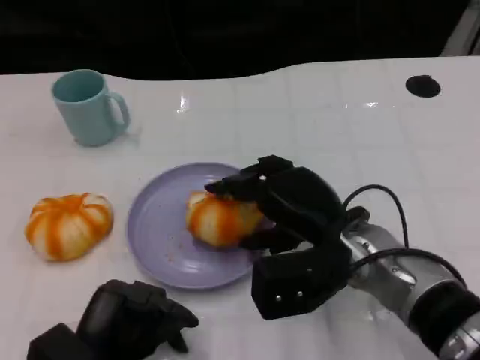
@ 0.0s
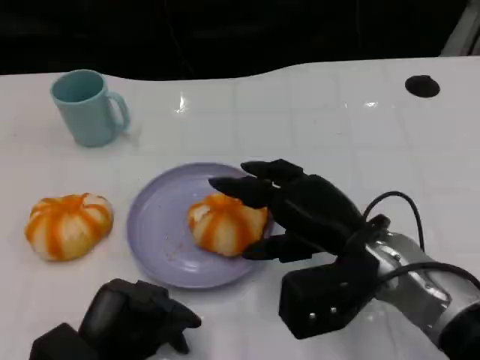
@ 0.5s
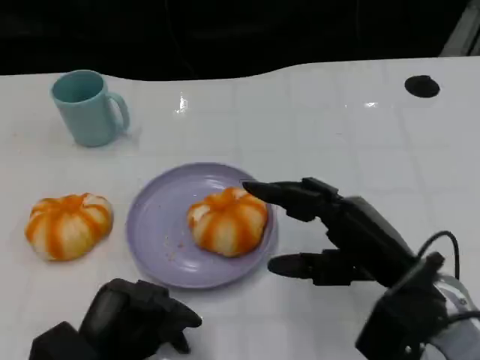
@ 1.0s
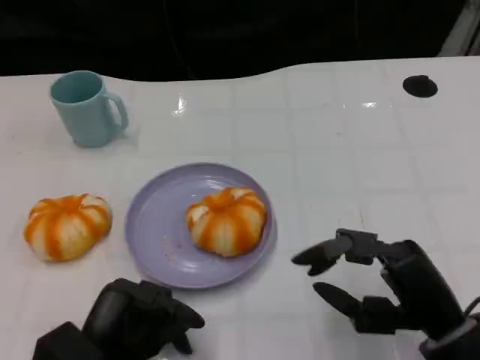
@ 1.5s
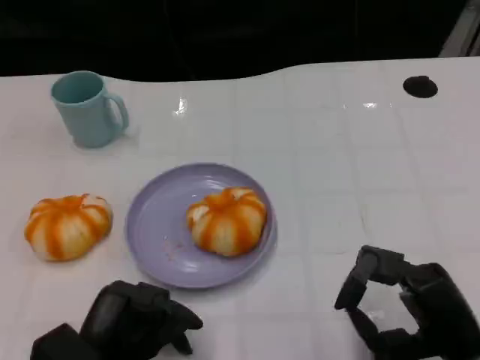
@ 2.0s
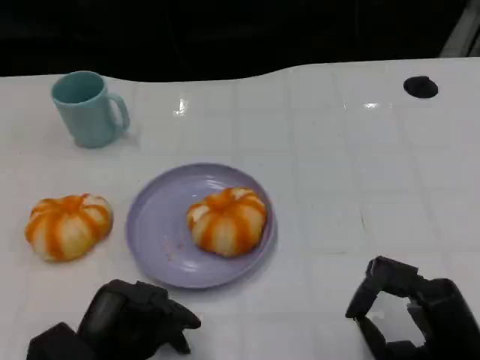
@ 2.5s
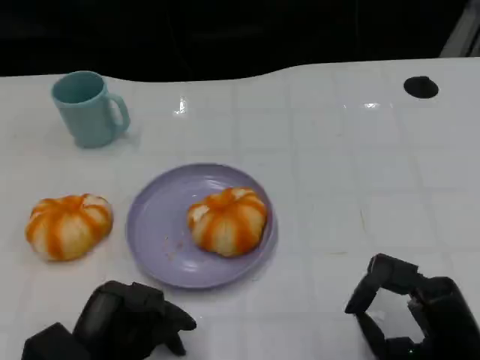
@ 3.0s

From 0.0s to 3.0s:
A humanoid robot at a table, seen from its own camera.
Task of the whole recording: Grasp the bread from the table and place it into the plate.
From 0.0s to 1.5s: The right hand heads to the right and backward, covering approximately 15 cm.
From 1.5s to 3.0s: The hands stay close to where they were, moving slightly.

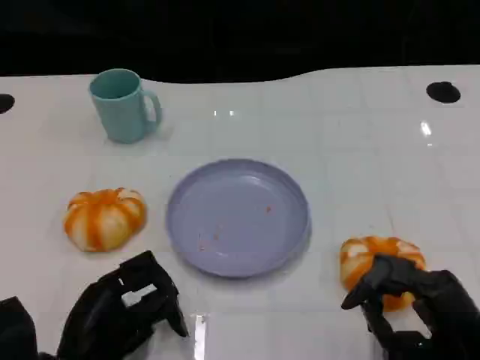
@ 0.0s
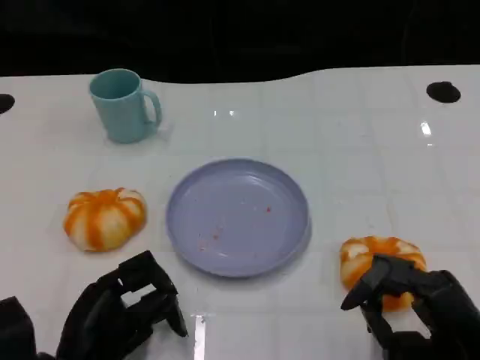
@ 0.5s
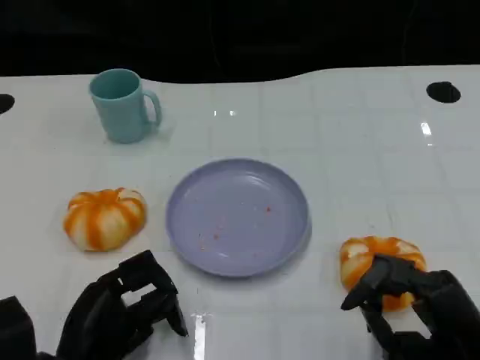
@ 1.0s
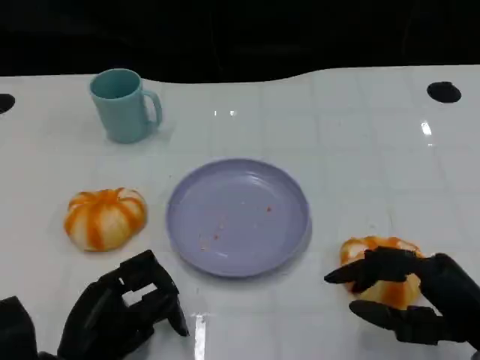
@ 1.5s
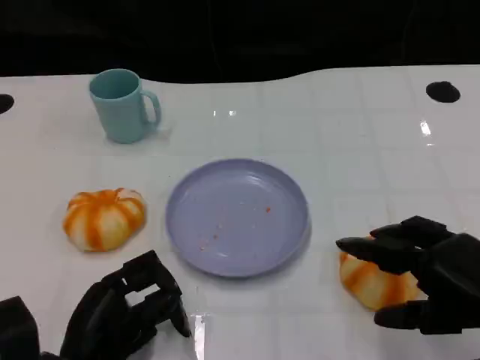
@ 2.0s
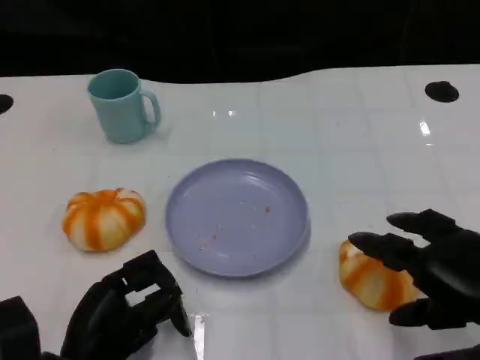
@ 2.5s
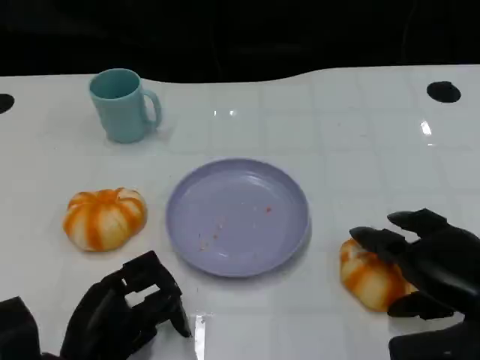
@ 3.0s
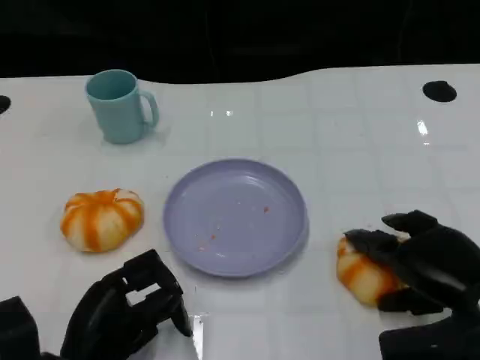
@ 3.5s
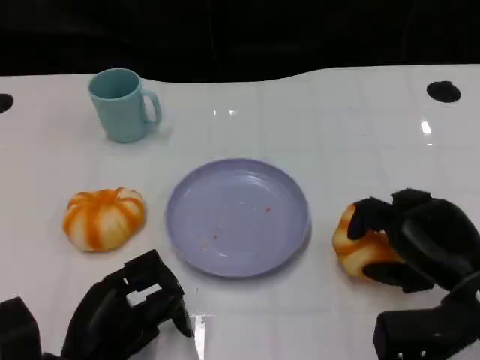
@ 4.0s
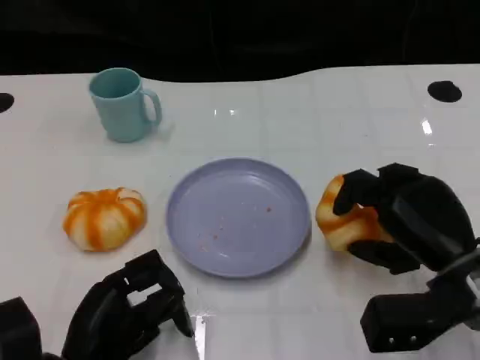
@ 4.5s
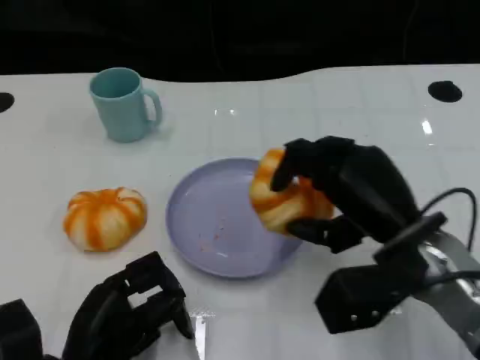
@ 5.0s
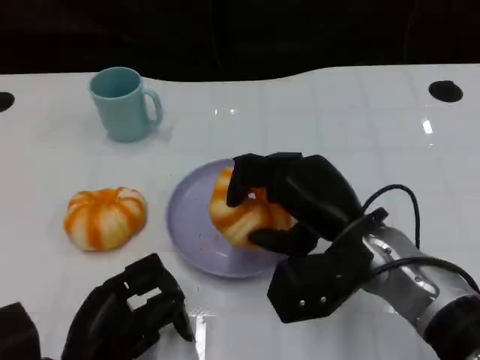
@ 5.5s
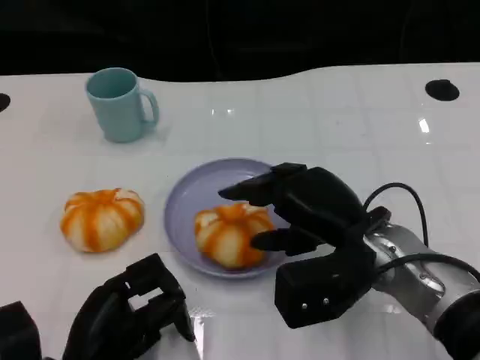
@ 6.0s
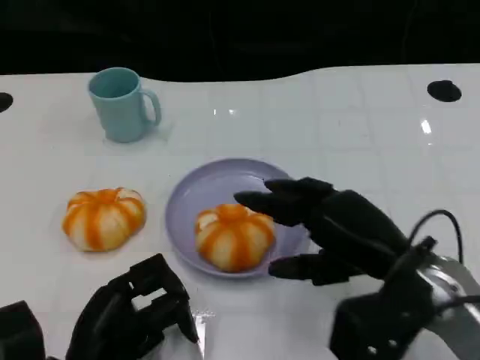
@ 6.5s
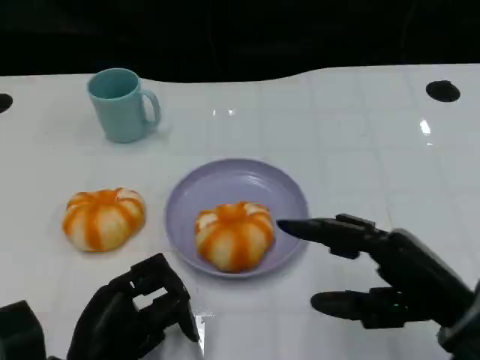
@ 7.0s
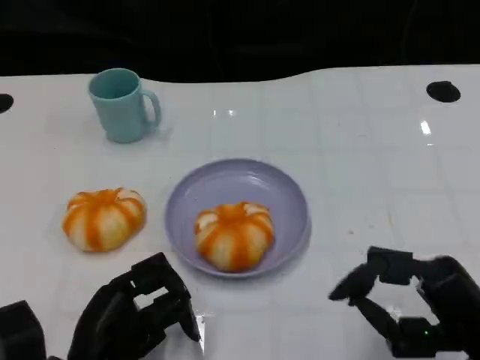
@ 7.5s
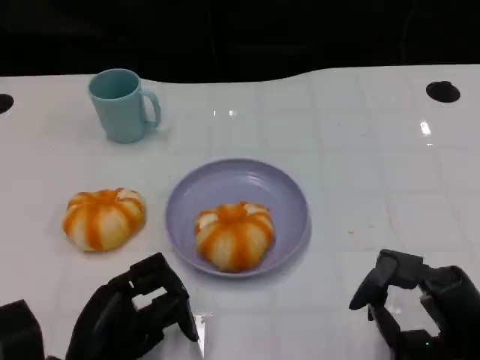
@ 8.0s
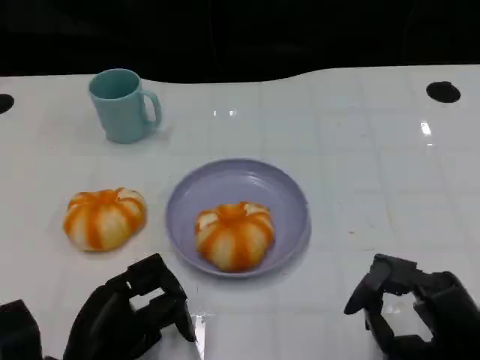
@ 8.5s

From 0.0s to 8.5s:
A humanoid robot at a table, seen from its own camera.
Task of the whole recording: Grasp the bread from the table and place it into the plate.
From 0.0s to 2.0s: The right hand travels upward by approximately 5 cm.
From 2.0s to 4.0s: The right hand is displaced forward by some 5 cm.
From 4.0s to 6.5s: The right hand heads to the left, covering some 5 cm.
From 6.5s to 8.5s: The right hand goes roughly 10 cm backward, downward and to the right.

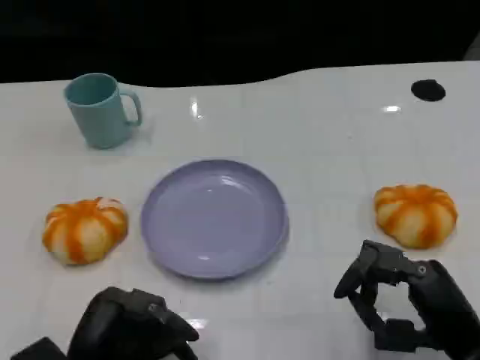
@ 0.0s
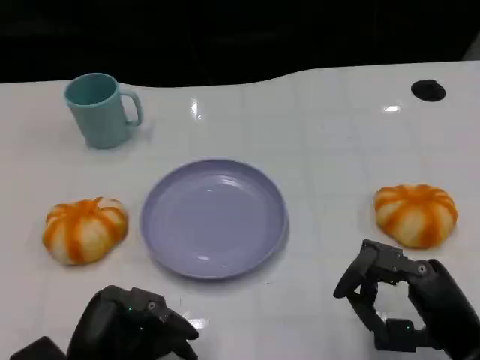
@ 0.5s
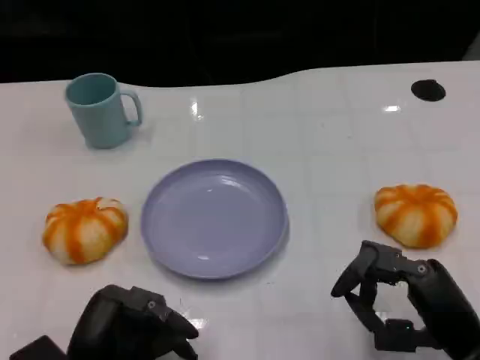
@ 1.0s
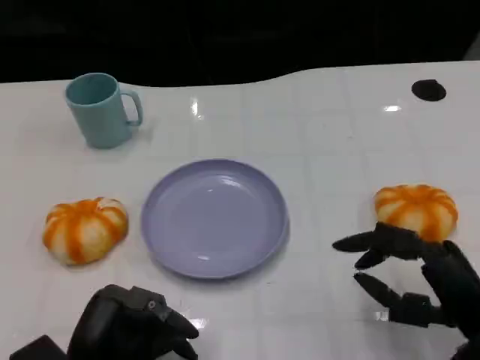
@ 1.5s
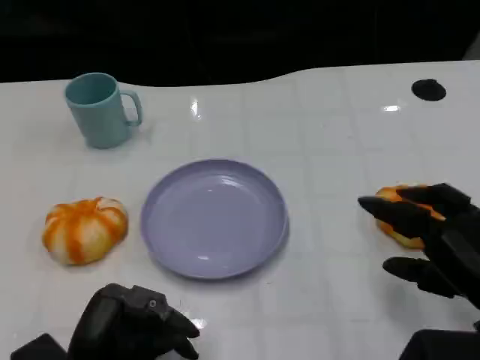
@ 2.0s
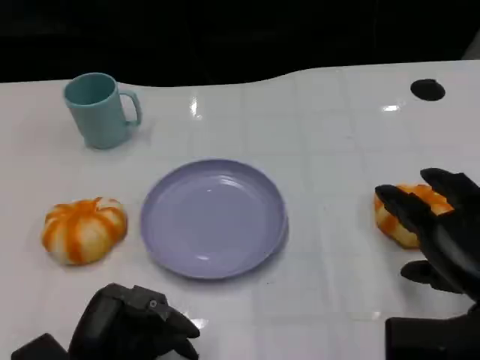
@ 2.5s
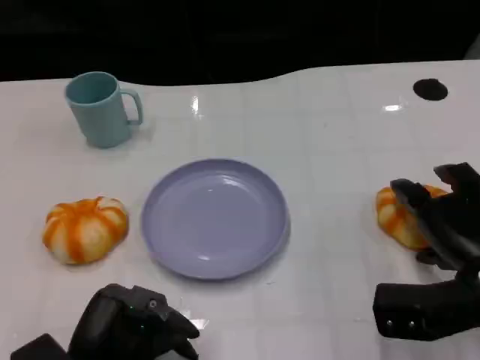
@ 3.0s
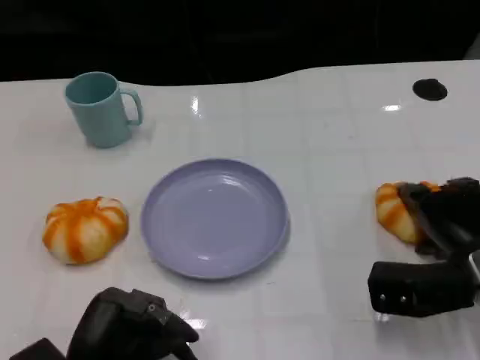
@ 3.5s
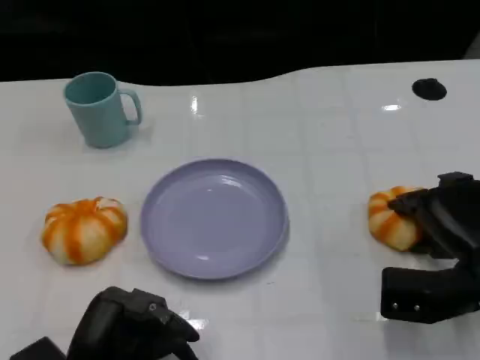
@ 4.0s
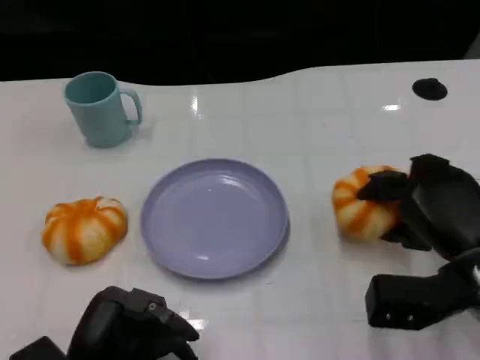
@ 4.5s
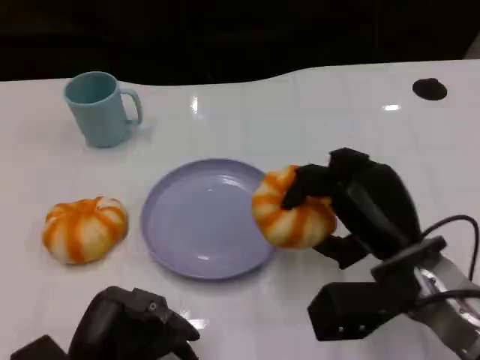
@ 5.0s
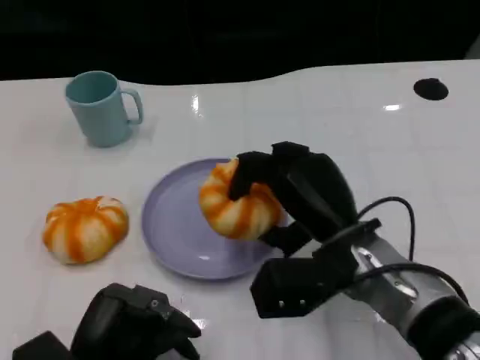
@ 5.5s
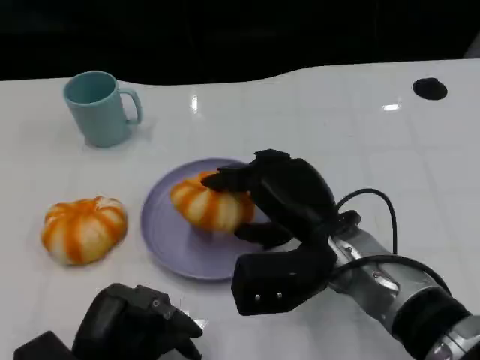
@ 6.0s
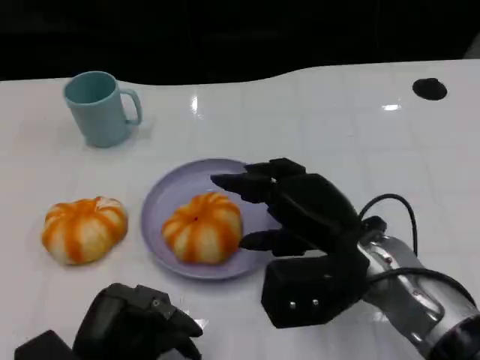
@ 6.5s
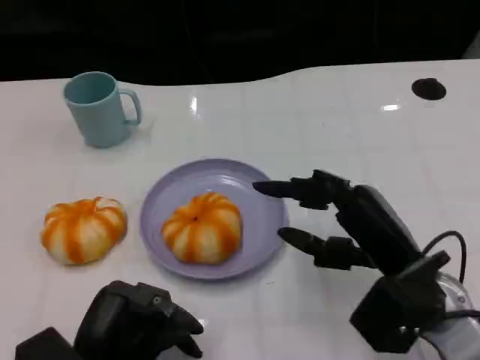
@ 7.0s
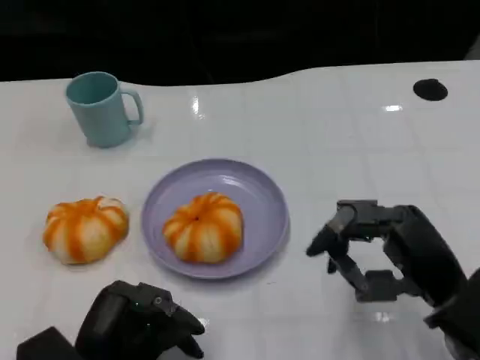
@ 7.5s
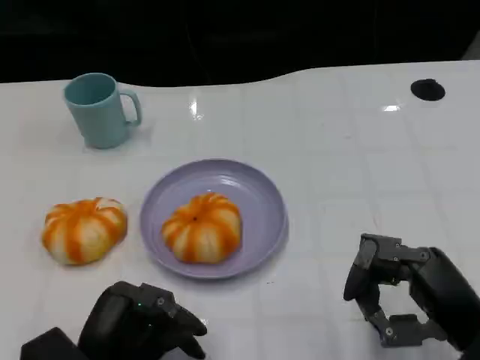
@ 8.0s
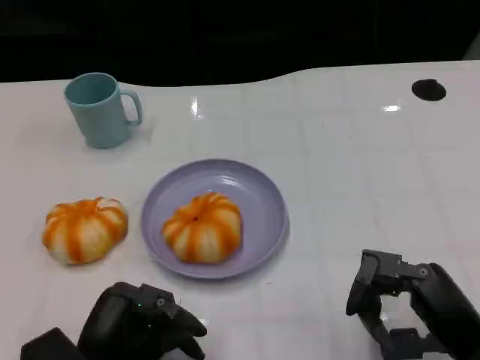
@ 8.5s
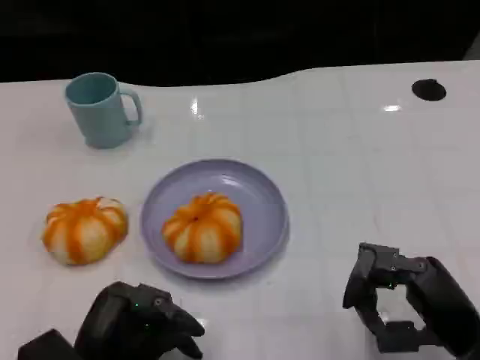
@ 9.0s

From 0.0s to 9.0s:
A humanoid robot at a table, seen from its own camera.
Task of the whole recording: Grasp the bread from the table and place it into the plate.
From 0.0s to 2.0s: The right hand changes place by about 5 cm.
From 2.0s to 4.5s: The right hand shifts about 5 cm forward.
From 4.5s to 7.0s: The right hand travels to the left by about 5 cm.
From 7.0s to 9.0s: The right hand shifts about 10 cm backward and to the right.

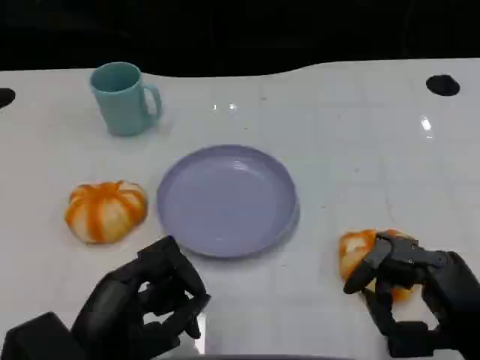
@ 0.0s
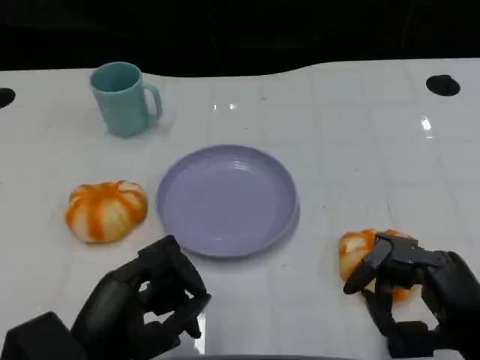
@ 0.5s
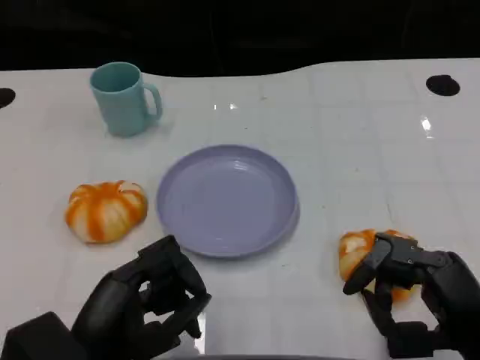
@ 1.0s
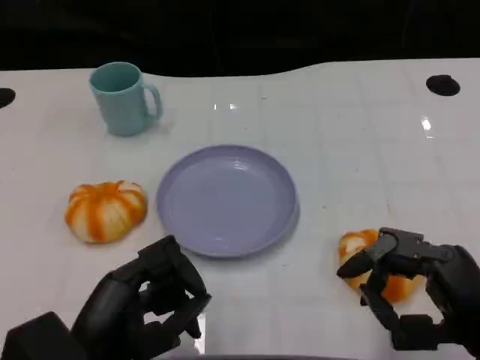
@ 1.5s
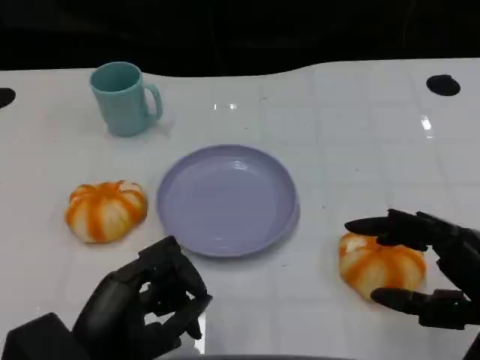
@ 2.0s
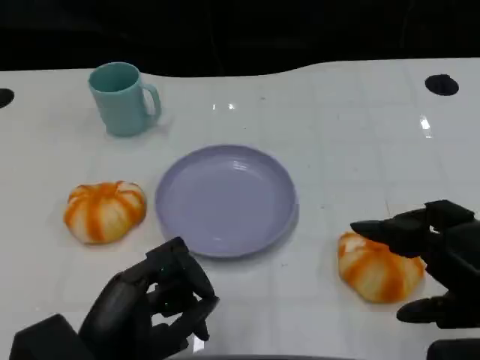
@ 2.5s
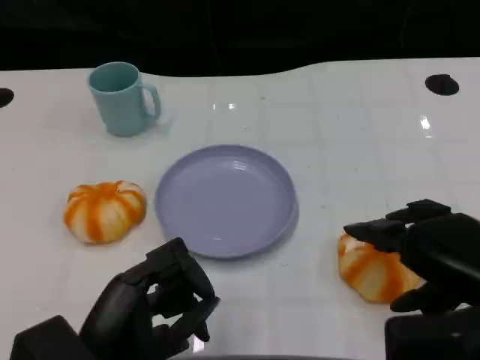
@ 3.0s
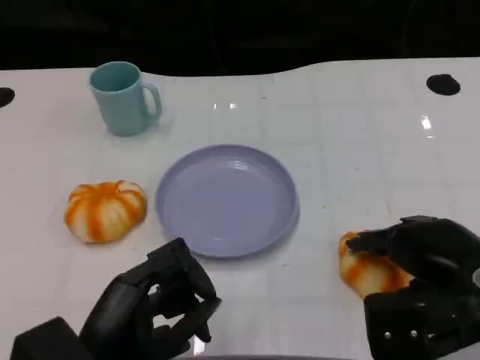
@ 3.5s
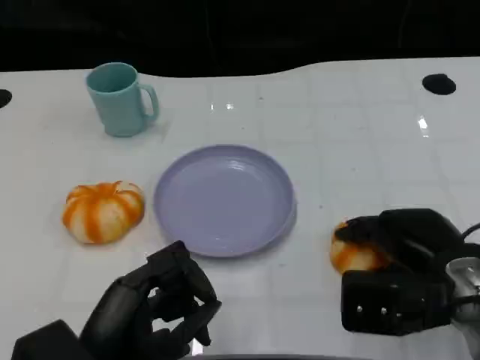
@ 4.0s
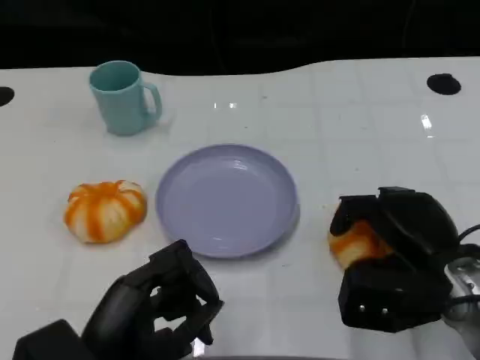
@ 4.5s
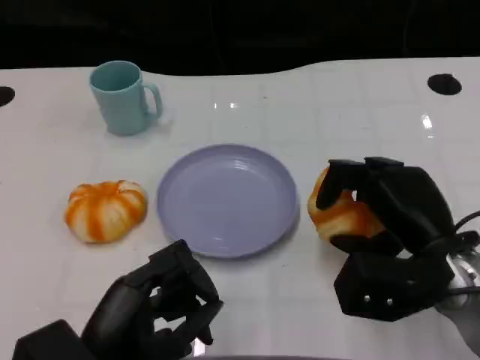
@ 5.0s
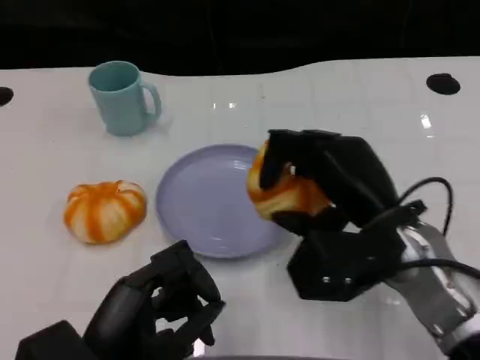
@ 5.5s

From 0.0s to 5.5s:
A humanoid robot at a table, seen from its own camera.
Task of the whole recording: Grasp the bread from the table and place it into the plate.
From 0.0s to 2.0s: The right hand changes place by about 5 cm.
From 2.0s to 3.5s: The right hand moves forward, about 5 cm.
From 3.5s to 5.5s: The right hand heads to the left, covering approximately 10 cm.
